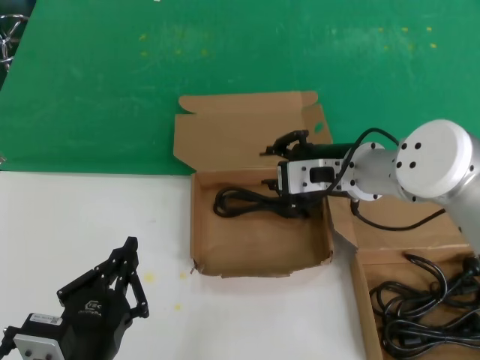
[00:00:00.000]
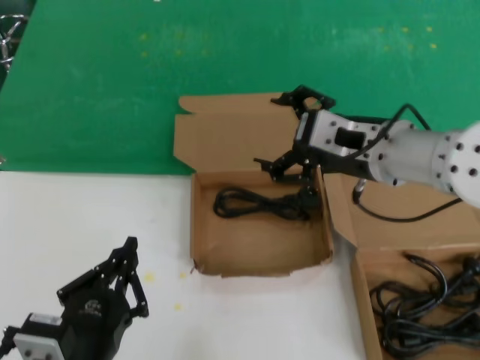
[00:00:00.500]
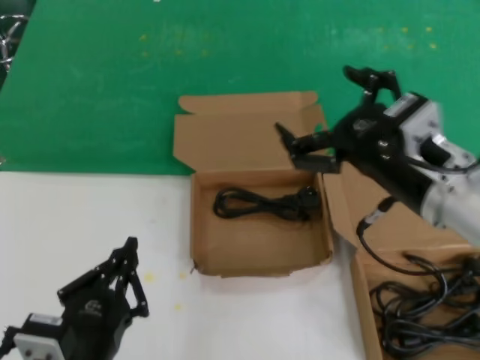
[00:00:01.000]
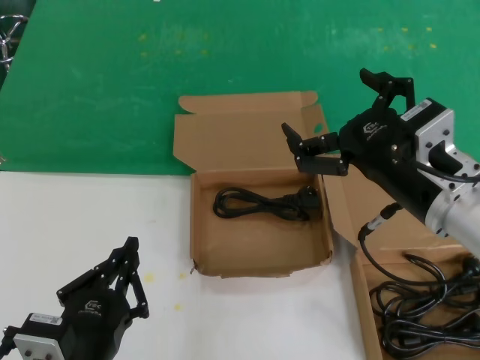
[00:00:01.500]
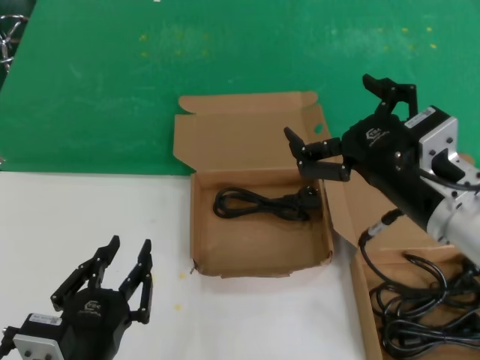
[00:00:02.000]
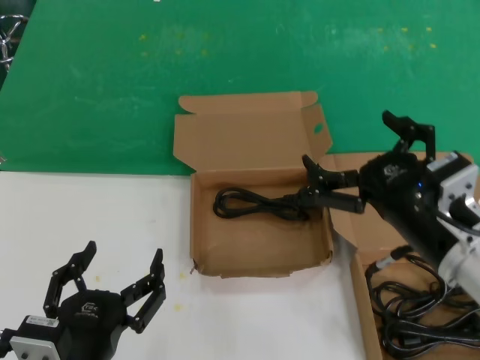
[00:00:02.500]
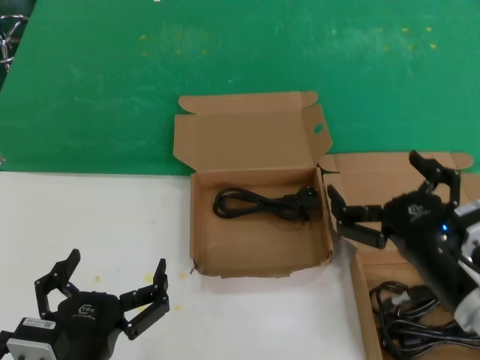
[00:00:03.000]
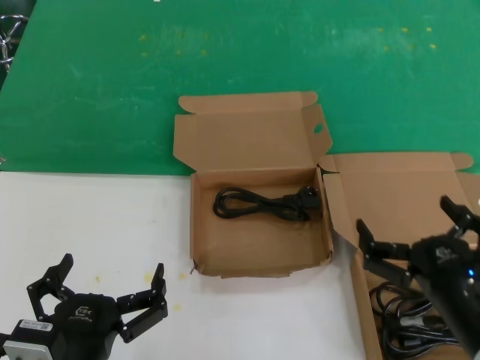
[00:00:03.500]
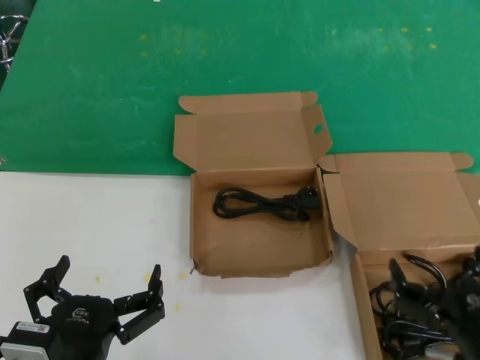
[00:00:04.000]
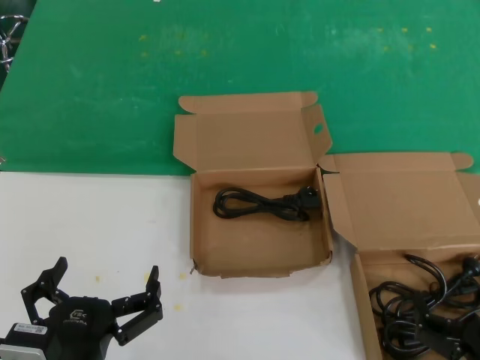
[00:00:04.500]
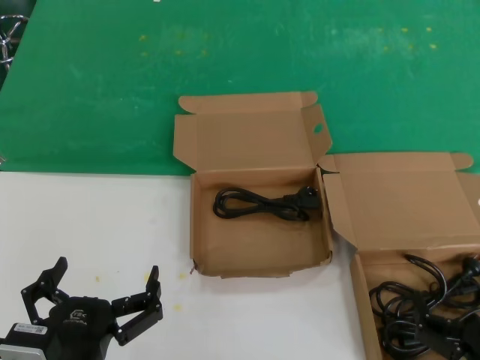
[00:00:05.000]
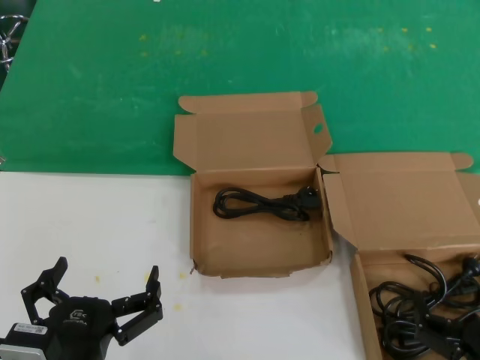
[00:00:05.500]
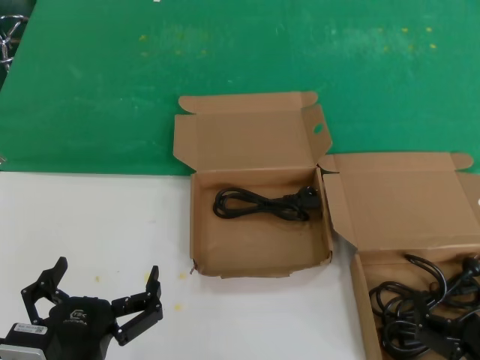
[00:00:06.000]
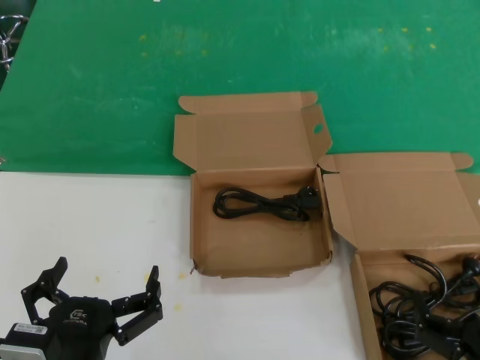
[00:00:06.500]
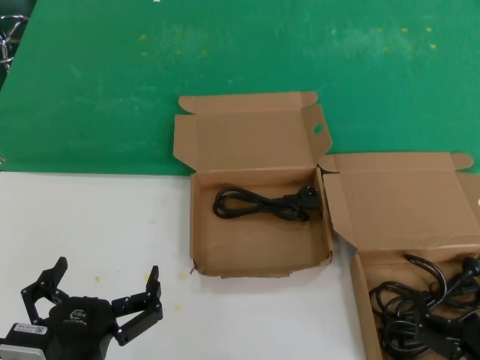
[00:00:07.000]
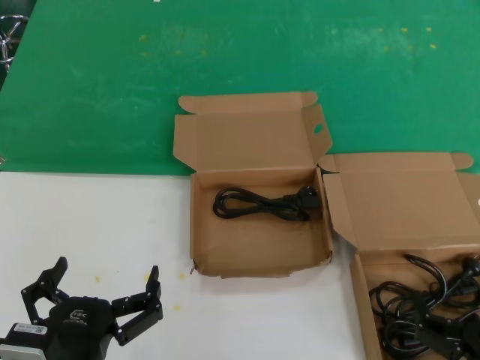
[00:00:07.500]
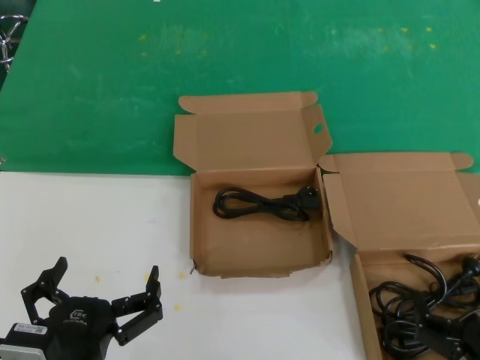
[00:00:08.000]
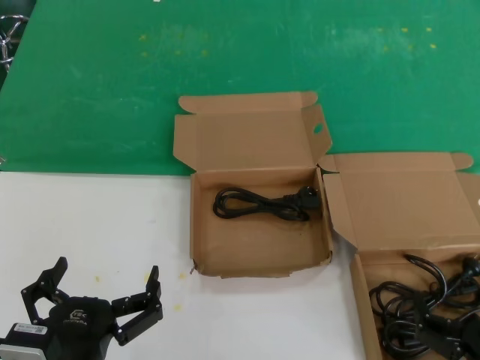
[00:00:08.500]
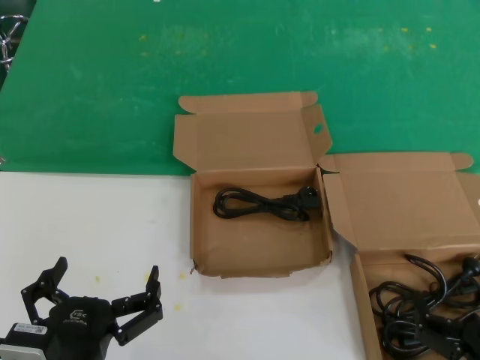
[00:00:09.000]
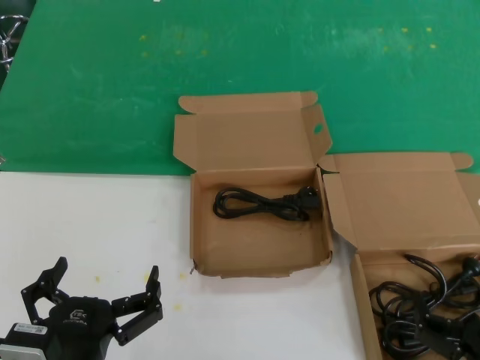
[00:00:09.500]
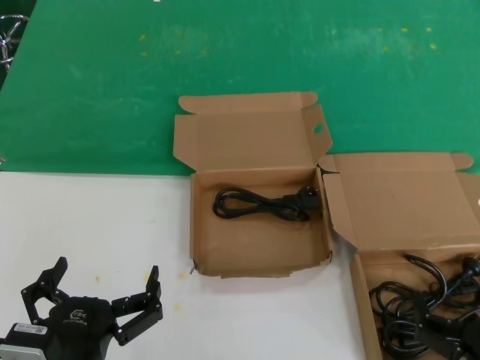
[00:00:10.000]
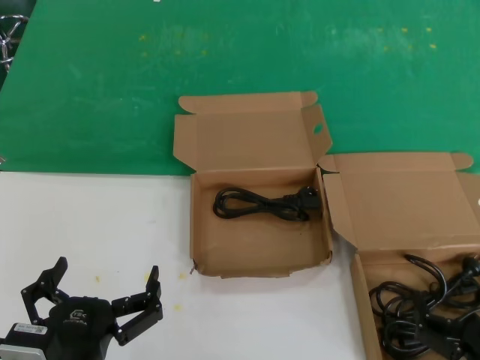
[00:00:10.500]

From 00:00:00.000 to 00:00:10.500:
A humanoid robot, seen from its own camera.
Task of the whole recording: take the parts from the box containing them and put them into an empty box.
From 00:00:00.000 to 00:00:02.000: The right hand moves backward and to the right, some 15 cm.
From 00:00:02.000 to 00:00:04.000: The right hand travels downward and backward by some 20 cm.
From 00:00:04.000 to 00:00:06.500: There are only small adjustments of the hands.
From 00:00:06.500 to 00:00:10.500: Both hands stay put.

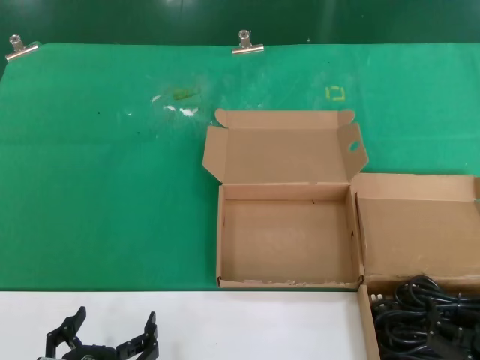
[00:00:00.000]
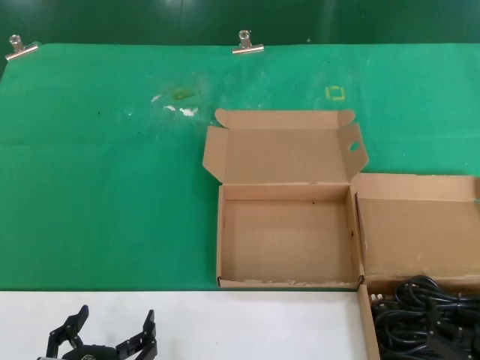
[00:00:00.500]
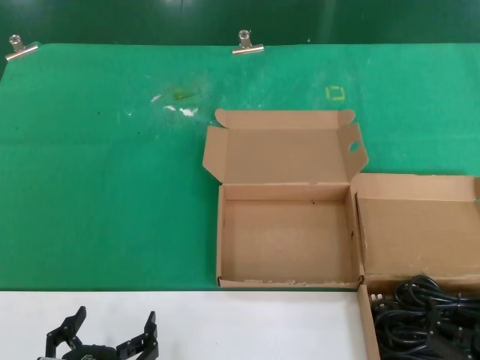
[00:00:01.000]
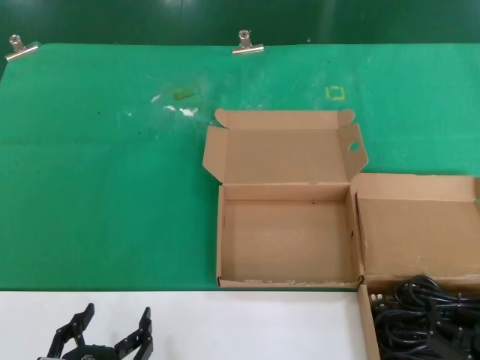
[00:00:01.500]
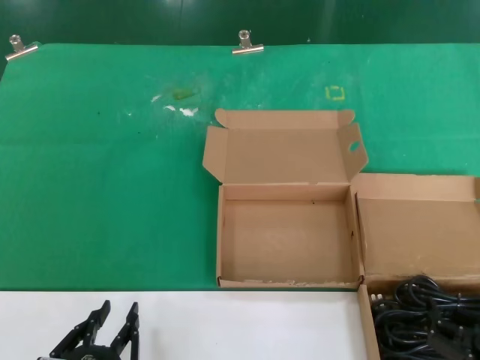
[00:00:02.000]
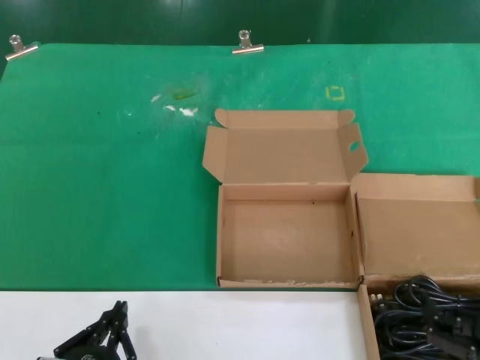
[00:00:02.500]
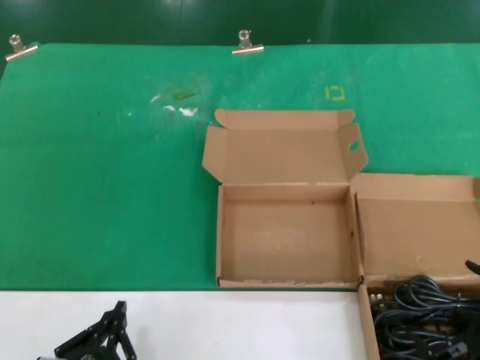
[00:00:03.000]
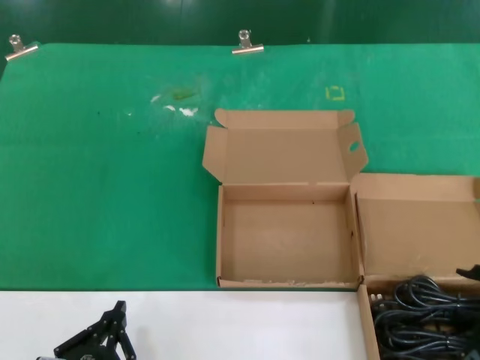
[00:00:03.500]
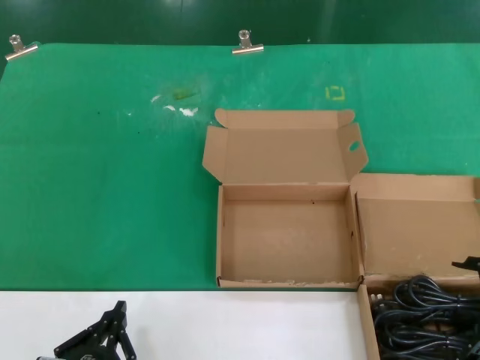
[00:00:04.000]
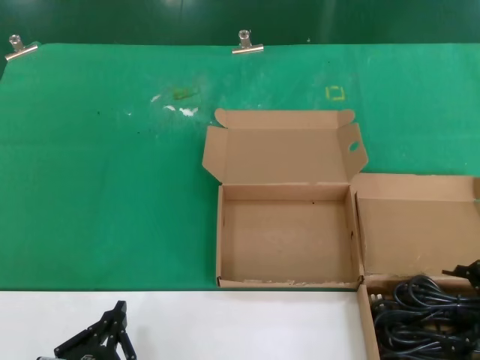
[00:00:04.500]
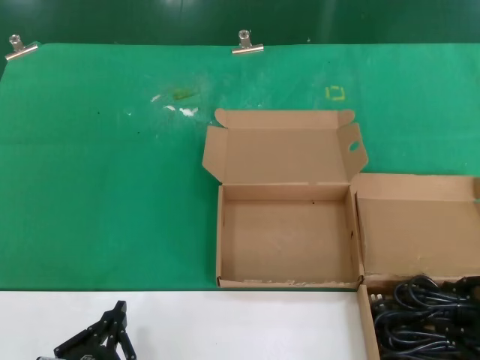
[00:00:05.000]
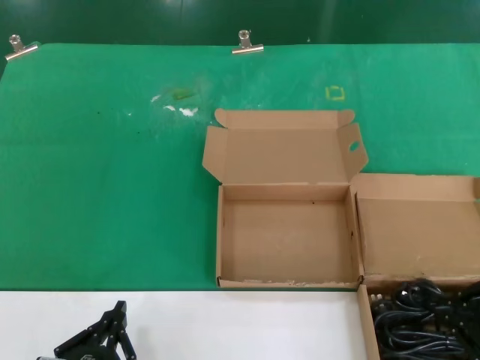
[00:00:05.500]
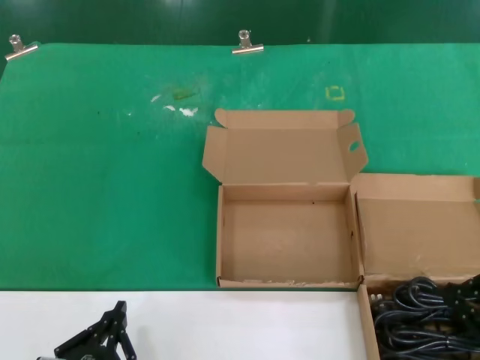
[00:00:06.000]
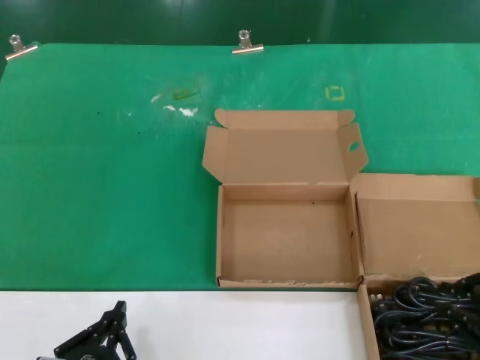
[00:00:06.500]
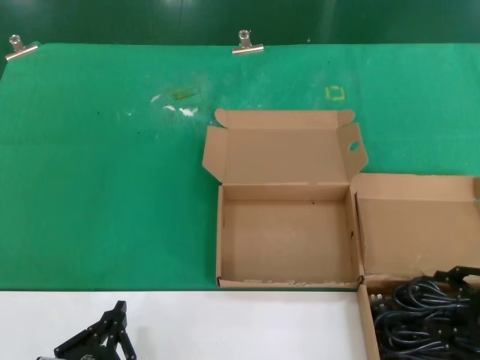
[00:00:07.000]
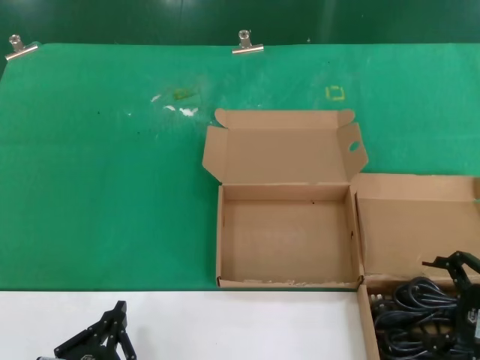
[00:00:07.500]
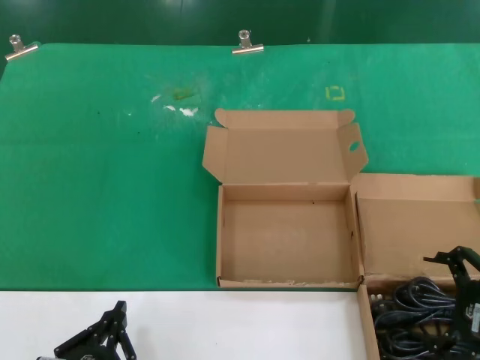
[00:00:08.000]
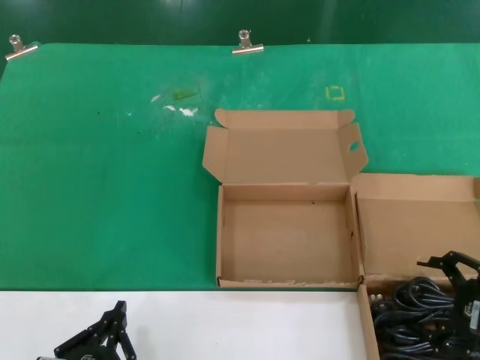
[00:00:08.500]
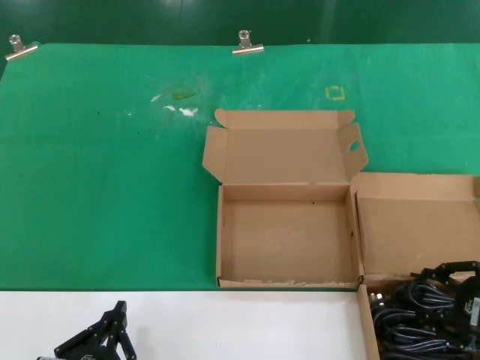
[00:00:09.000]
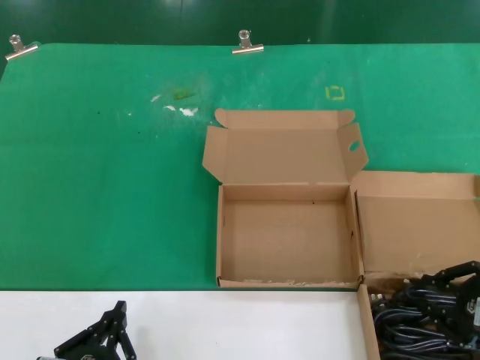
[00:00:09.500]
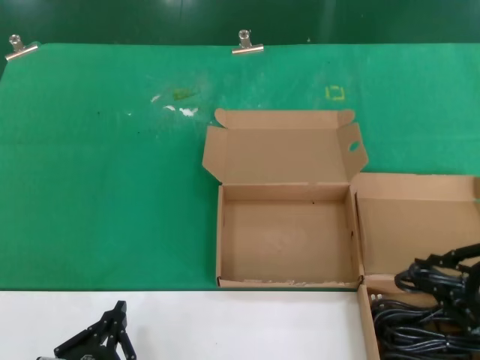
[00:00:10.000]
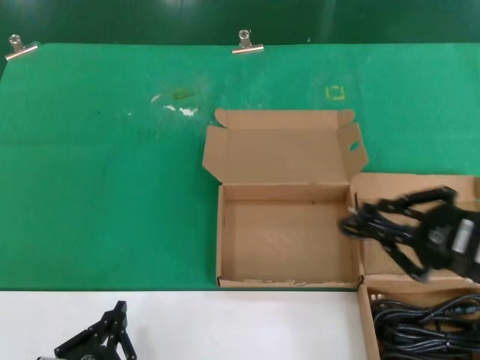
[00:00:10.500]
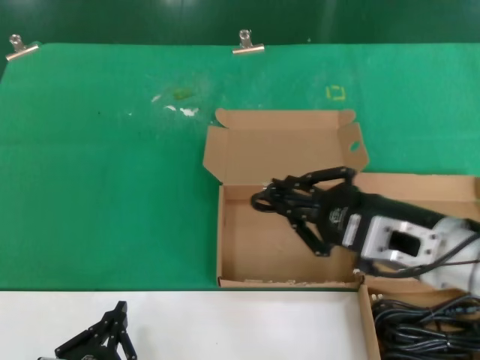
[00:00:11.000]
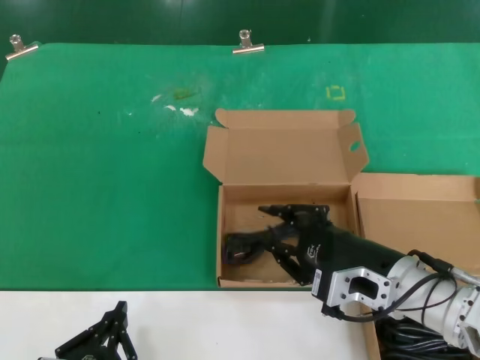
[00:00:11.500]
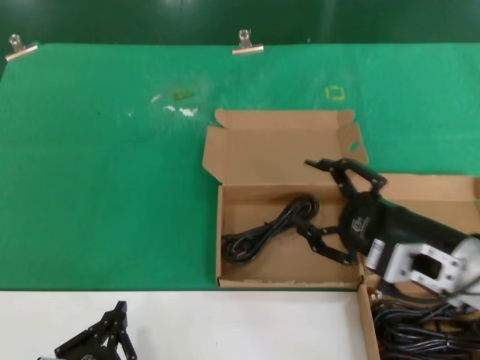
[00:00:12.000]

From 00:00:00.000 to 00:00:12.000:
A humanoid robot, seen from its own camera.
Task of the whole recording: take the parts from the box containing them and put them into an empty box.
Step, from 00:00:00.000 to 00:00:09.000: Grasp the data cable.
Step, from 00:00:09.500 to 00:00:11.500: Place the data cable in the another box.
From 00:00:00.000 to 00:00:02.000: Both hands stay about where they are.
From 00:00:02.000 to 00:00:04.000: The right hand shifts approximately 15 cm upward and to the right.
From 00:00:06.000 to 00:00:10.000: The hands stay close to where they were, moving slightly.
From 00:00:10.000 to 00:00:12.000: The right hand shifts some 15 cm to the left and forward.

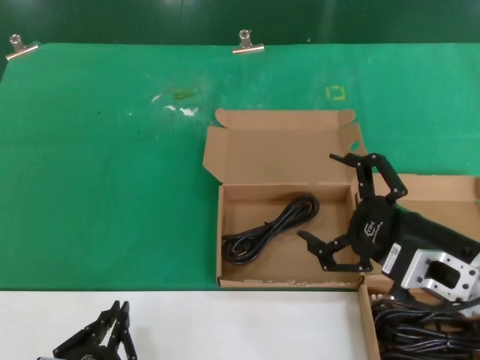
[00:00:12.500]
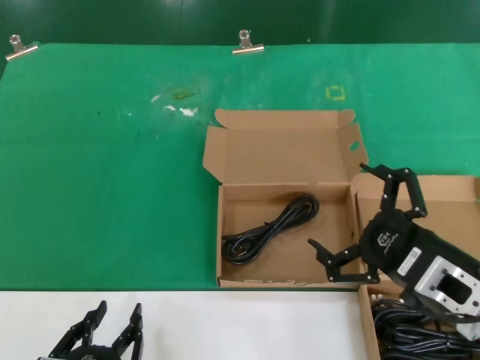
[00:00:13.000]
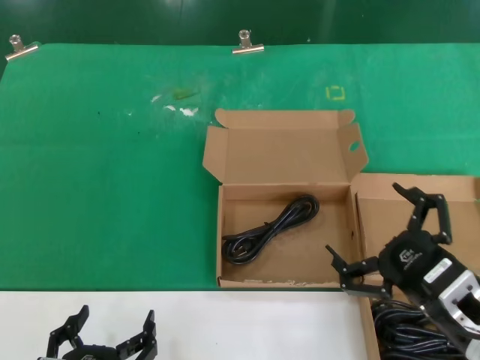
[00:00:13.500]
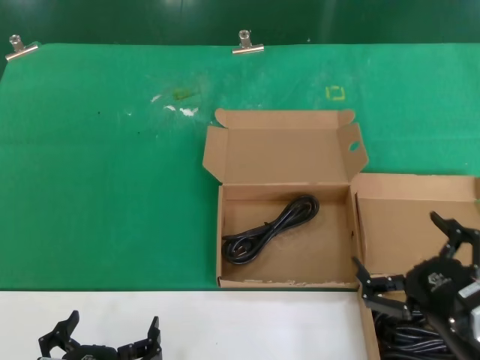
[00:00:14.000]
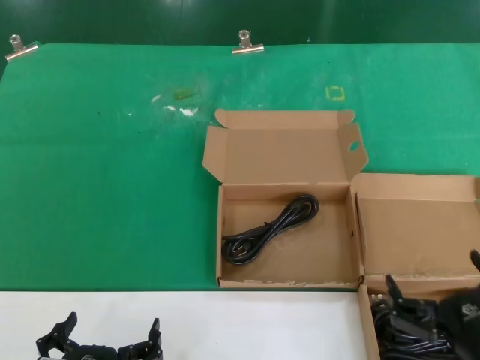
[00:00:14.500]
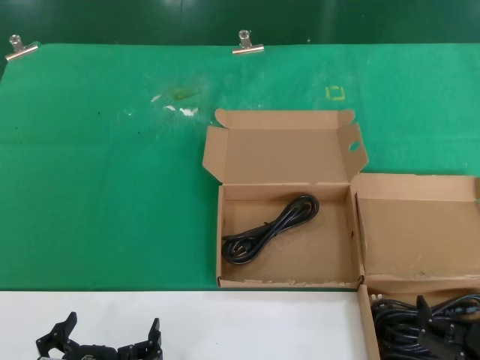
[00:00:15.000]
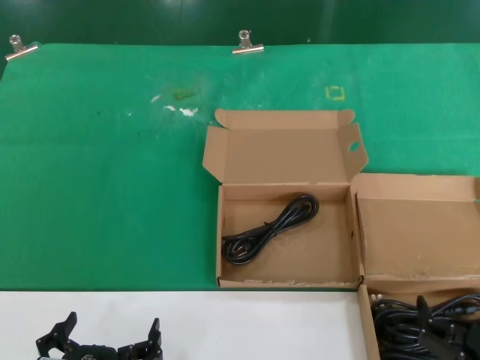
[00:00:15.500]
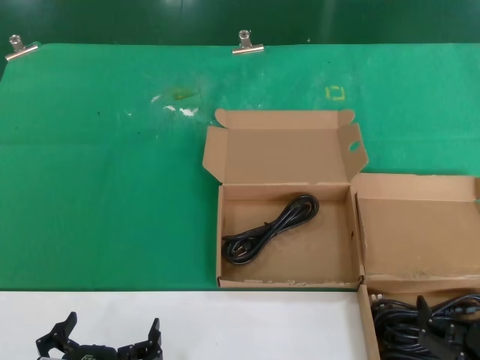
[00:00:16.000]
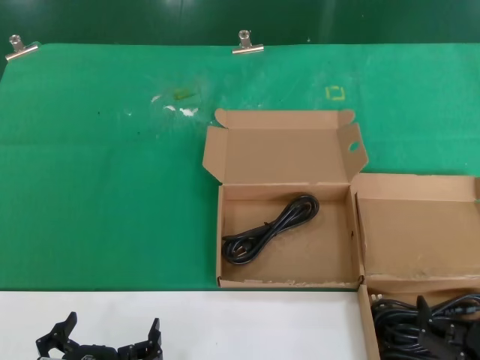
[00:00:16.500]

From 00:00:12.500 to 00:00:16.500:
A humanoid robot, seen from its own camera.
Task of the whole recording: take the parts from the box containing them and put them into an empty box.
From 00:00:12.500 to 00:00:14.500: The right hand moves downward and backward, roughly 15 cm.
From 00:00:14.500 to 00:00:16.500: The hands move only a little.
